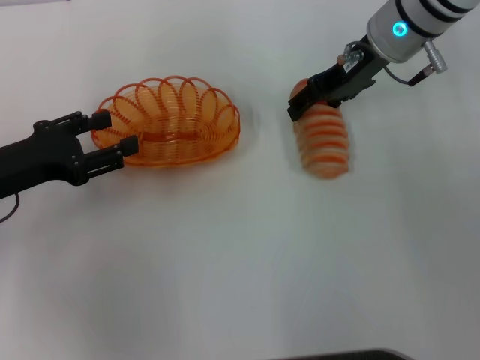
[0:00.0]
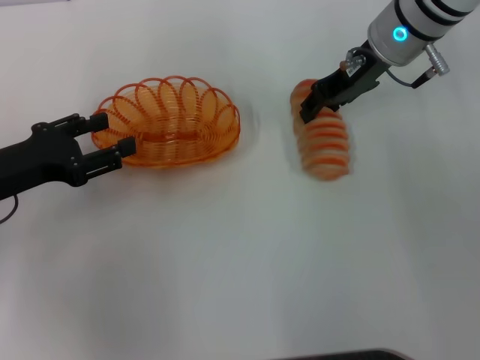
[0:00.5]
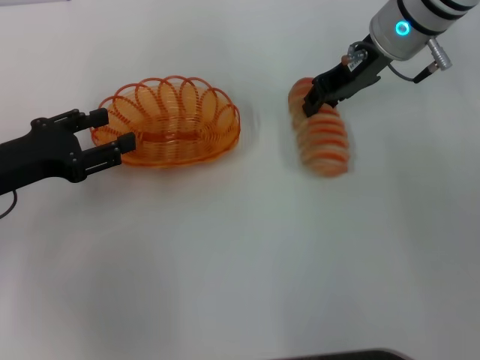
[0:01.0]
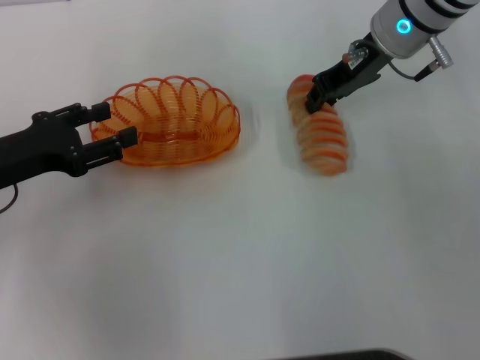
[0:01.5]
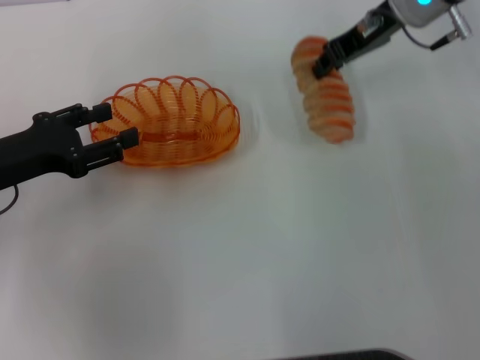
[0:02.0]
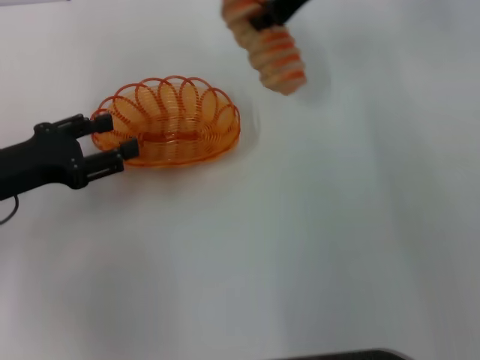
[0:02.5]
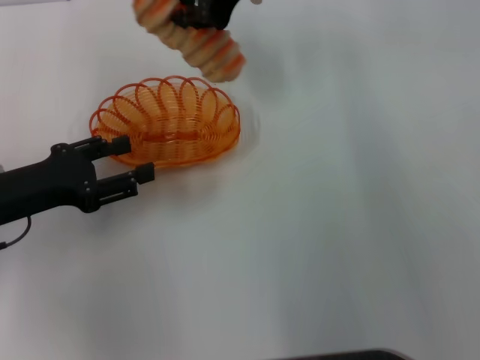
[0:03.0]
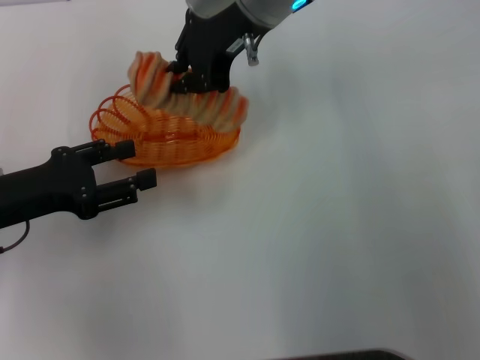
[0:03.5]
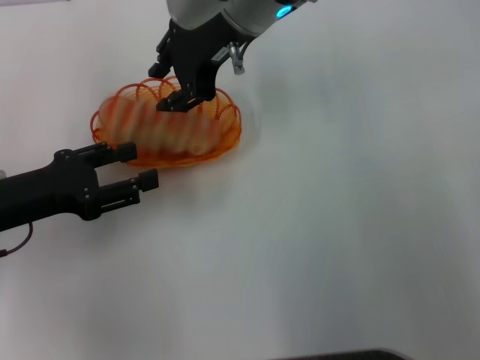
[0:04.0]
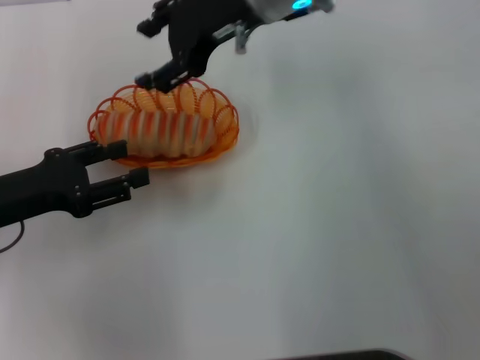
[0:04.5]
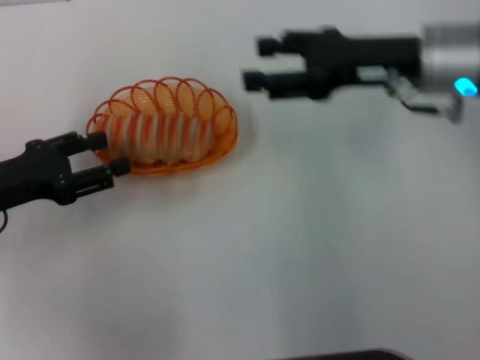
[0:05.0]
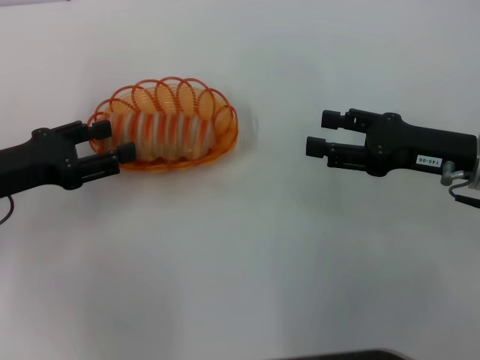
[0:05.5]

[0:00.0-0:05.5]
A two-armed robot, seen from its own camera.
Step, 0:00.0 to 0:02.0: Pick up the long bread with the right gripper.
Step, 0:02.5 to 0:04.5: Place the long bread into the basket with the right gripper.
0:00.0 to 0:02.0: The right gripper closes.
0:02.0 to 0:03.5: The right gripper heads to the left, covering roughly 15 cm.
0:03.5 to 0:05.5: The right gripper is displaced to the right, backward and downward by roughly 30 cm, and opens up.
